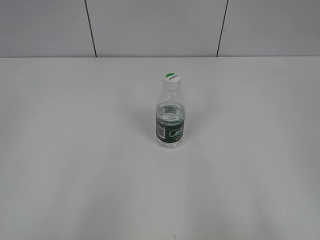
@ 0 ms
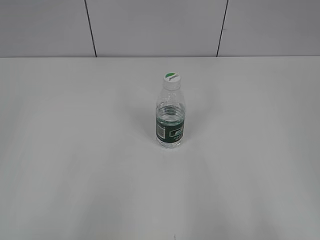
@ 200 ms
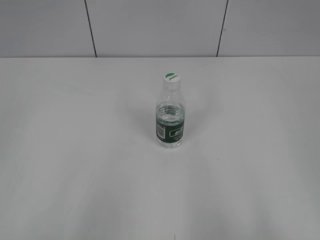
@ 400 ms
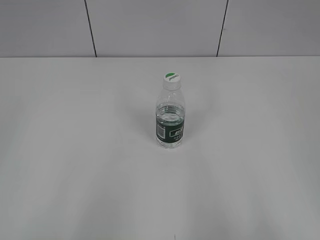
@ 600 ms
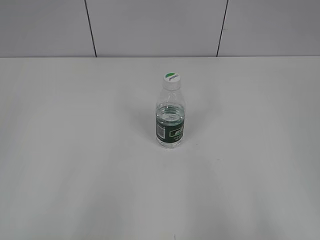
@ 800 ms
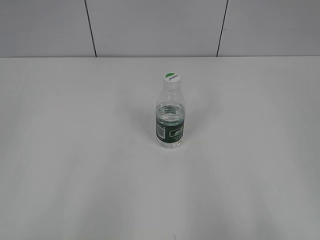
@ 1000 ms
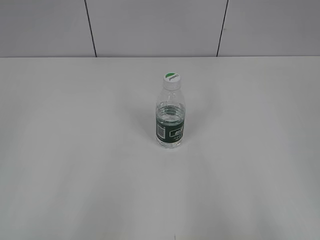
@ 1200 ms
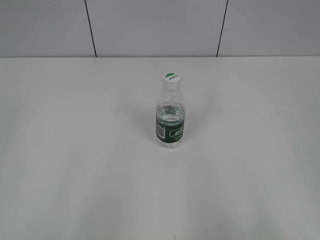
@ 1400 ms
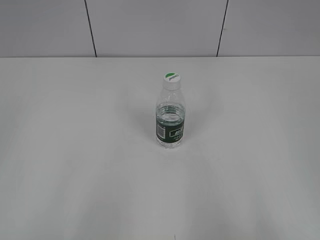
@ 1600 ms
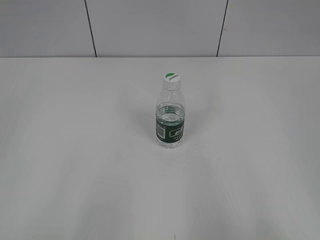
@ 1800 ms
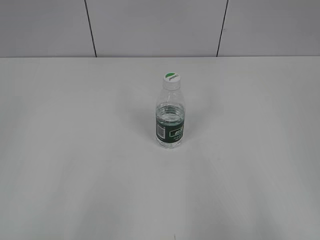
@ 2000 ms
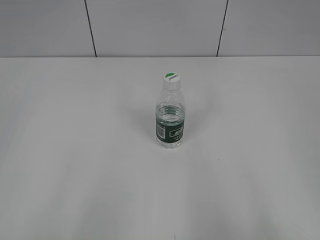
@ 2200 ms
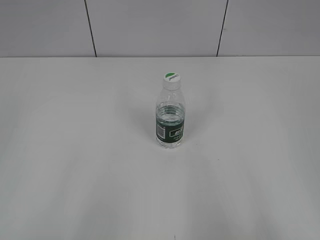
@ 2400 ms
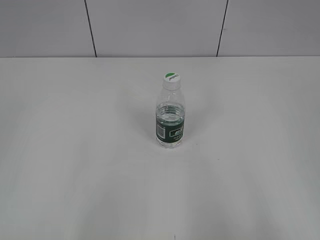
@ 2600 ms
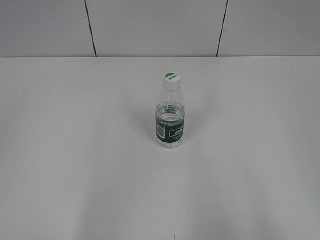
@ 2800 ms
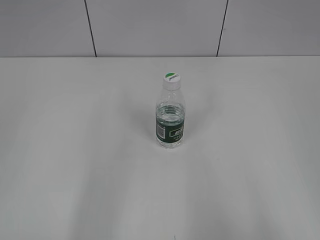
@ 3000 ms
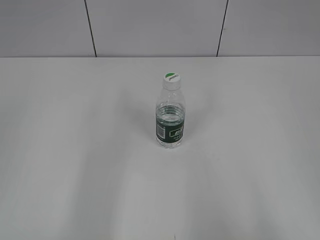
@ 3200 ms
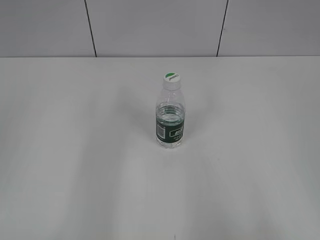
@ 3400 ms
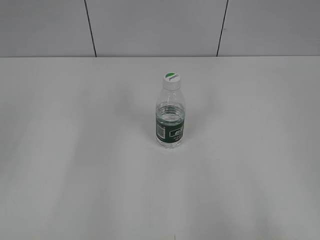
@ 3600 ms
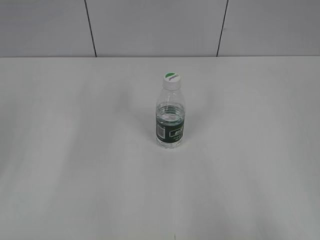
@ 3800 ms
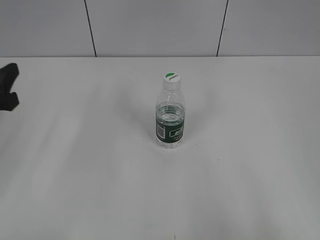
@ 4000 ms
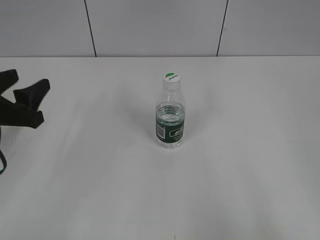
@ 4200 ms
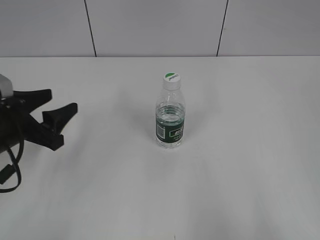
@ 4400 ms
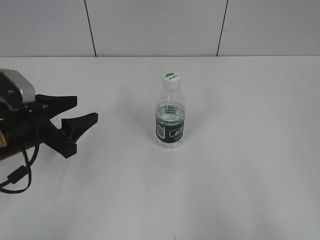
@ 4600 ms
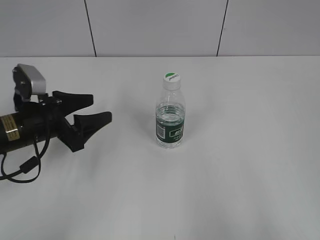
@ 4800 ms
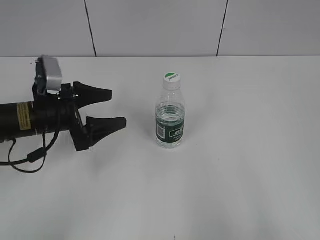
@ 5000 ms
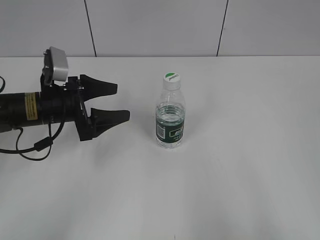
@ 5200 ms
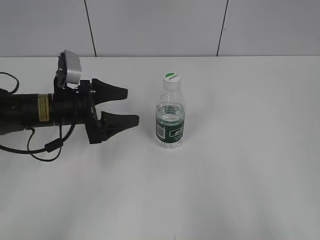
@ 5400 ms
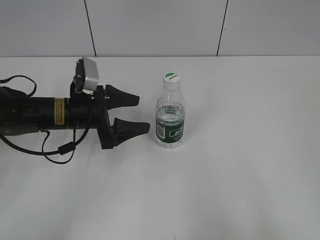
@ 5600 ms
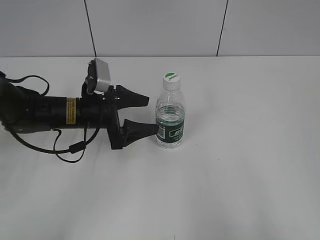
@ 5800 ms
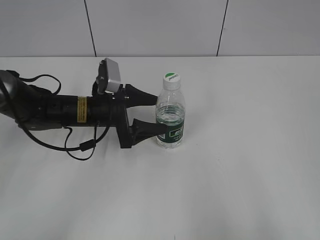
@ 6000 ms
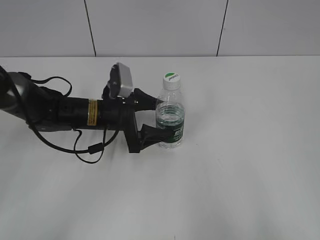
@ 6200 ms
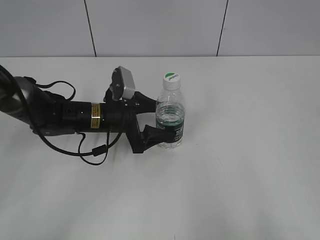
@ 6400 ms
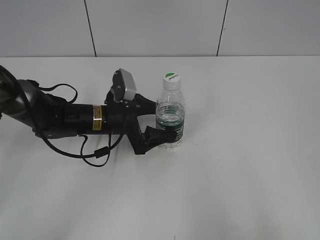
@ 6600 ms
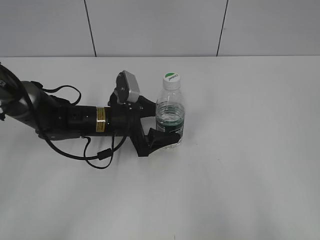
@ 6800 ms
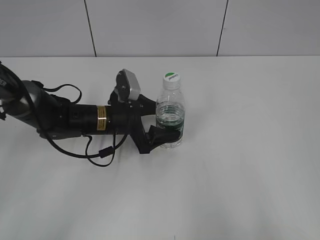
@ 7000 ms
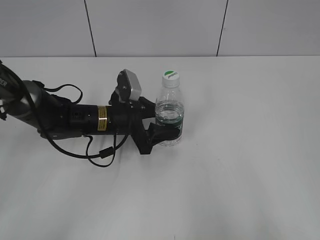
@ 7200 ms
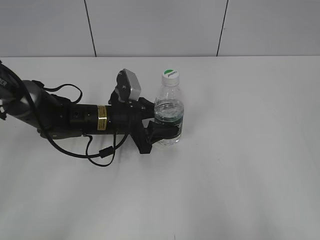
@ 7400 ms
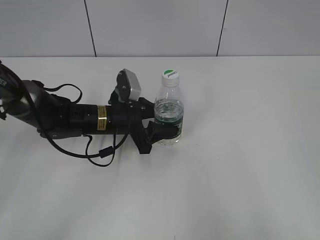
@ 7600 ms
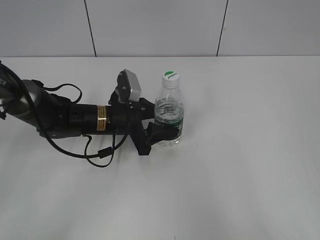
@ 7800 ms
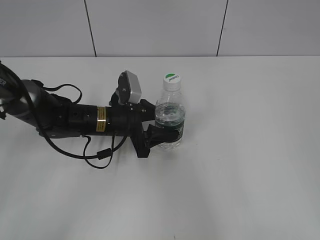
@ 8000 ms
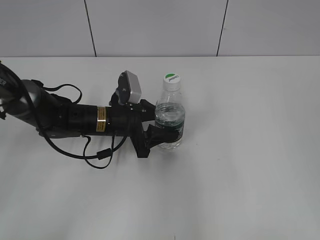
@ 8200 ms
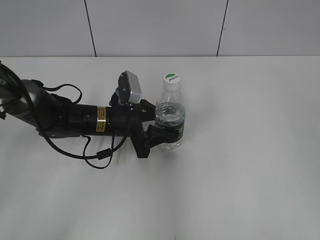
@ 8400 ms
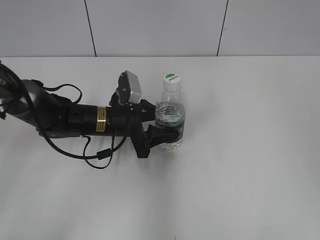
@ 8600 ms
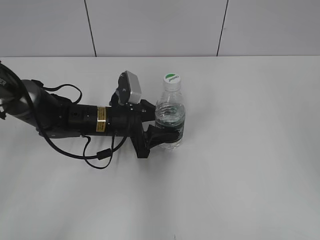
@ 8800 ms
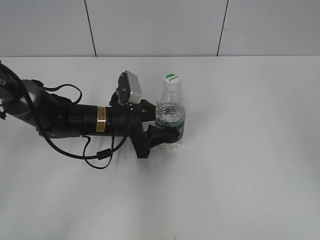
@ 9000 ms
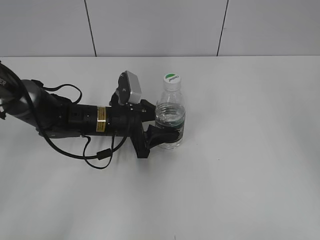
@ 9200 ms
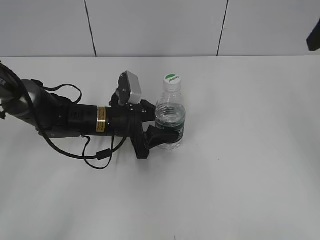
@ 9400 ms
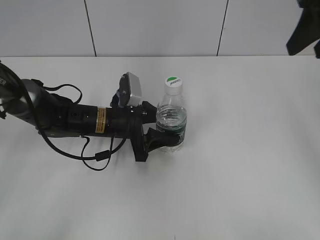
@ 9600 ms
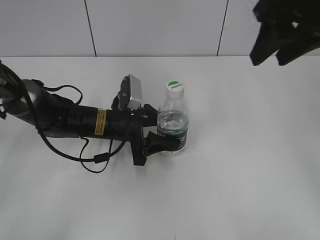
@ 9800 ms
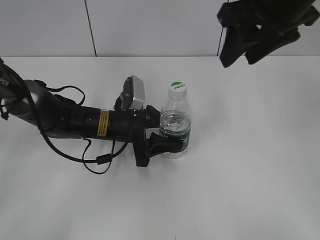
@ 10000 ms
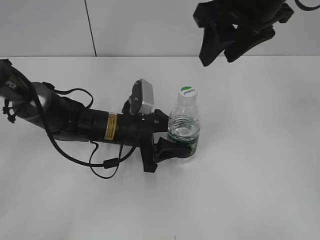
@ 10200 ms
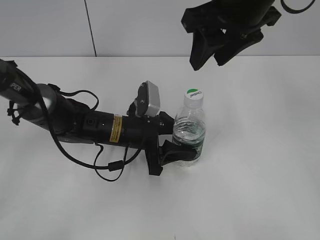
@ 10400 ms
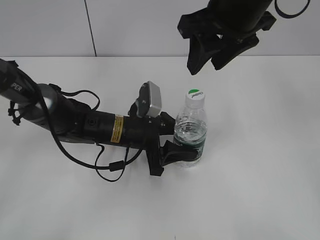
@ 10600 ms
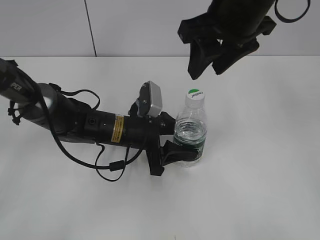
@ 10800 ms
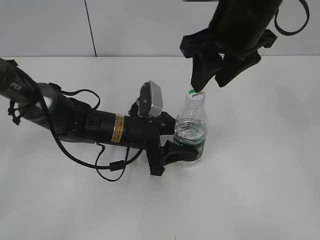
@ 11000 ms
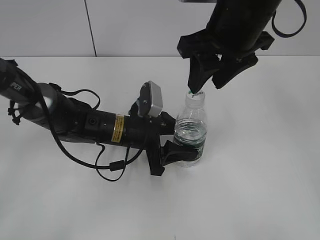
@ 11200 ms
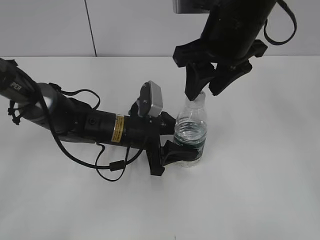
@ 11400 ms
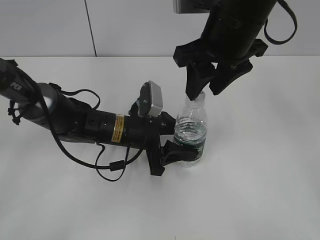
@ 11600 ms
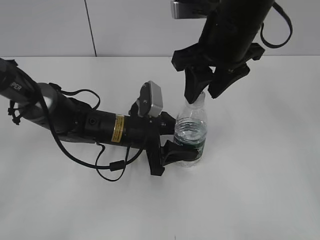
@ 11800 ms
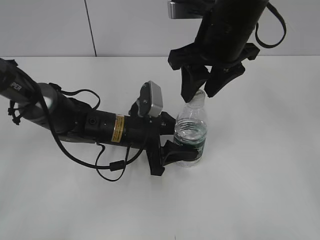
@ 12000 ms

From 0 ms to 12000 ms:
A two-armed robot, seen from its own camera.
Step, from 0 ms to 7600 ms: Grasp the bottle and move it to the center of the table with the left gripper.
From 3000 ms to 4400 ms: The left gripper travels forward and downward by about 25 cm.
From 4400 ms to 6000 ms: The left gripper shifts some 15 cm to the right and forward, and opens its fingers.
From 6000 ms to 7600 ms: The left gripper closes its fingers.
From 7600 ms to 9000 ms: The right gripper heads forward, covering some 20 cm, and closes up.
From 9000 ms to 10400 ms: The right gripper travels to the left and forward by some 20 cm.
From 10400 ms to 12000 ms: The right gripper moves downward, some 5 cm.

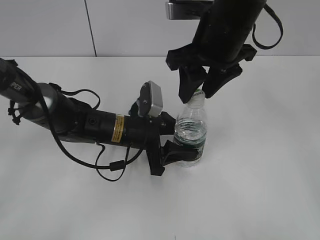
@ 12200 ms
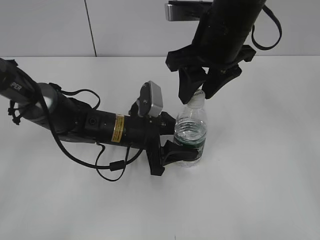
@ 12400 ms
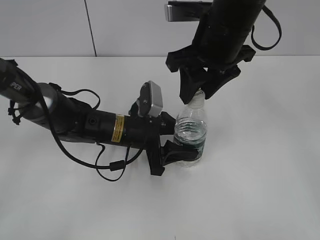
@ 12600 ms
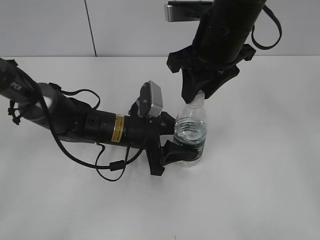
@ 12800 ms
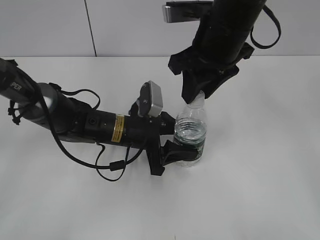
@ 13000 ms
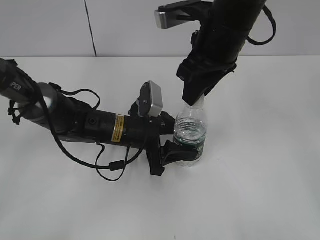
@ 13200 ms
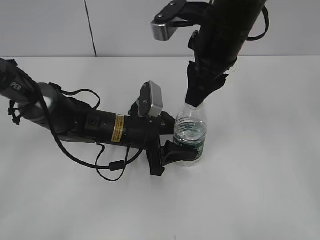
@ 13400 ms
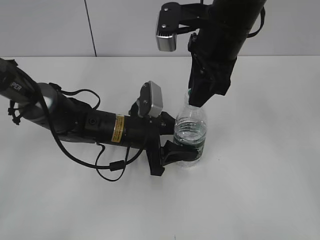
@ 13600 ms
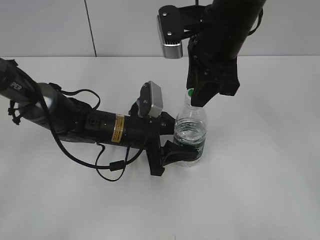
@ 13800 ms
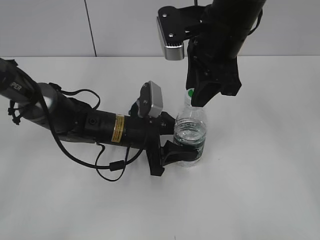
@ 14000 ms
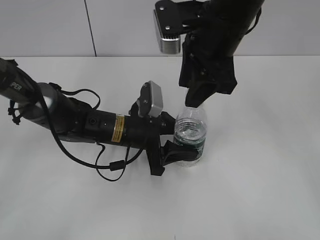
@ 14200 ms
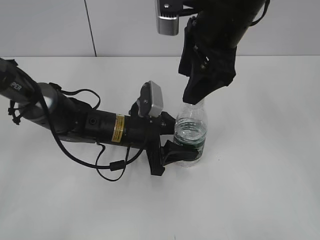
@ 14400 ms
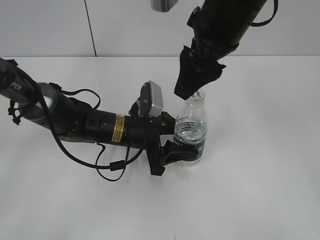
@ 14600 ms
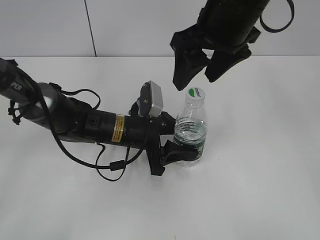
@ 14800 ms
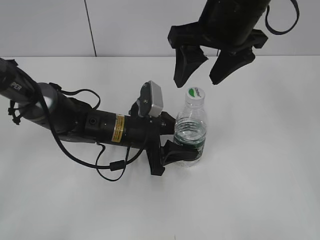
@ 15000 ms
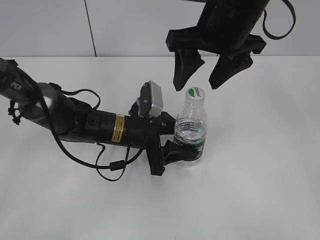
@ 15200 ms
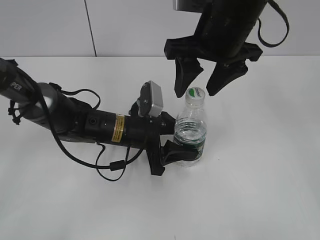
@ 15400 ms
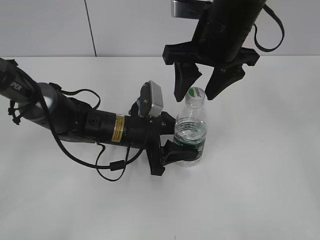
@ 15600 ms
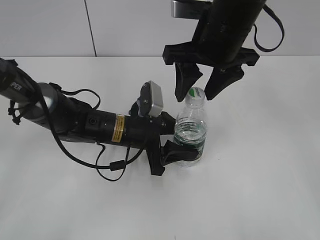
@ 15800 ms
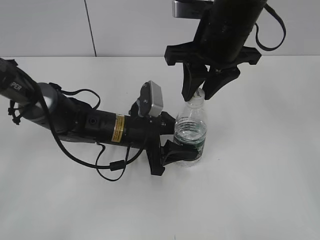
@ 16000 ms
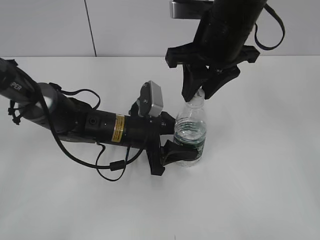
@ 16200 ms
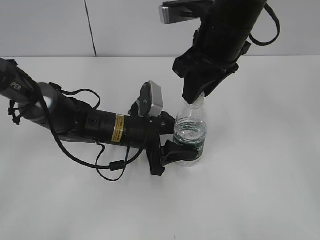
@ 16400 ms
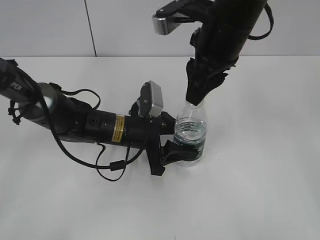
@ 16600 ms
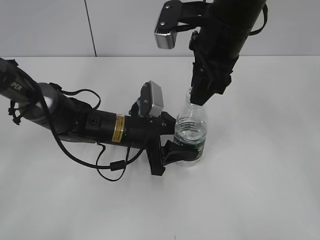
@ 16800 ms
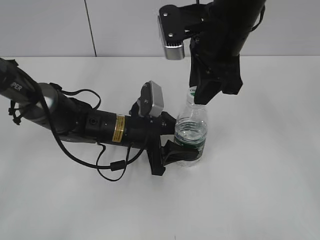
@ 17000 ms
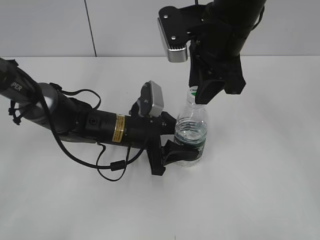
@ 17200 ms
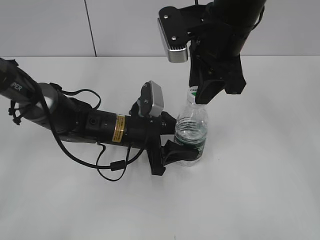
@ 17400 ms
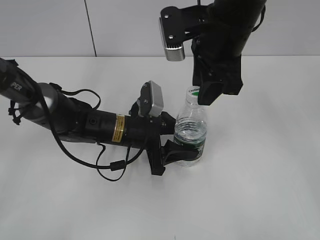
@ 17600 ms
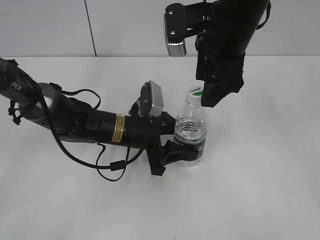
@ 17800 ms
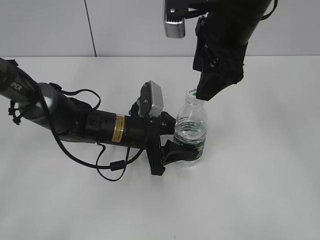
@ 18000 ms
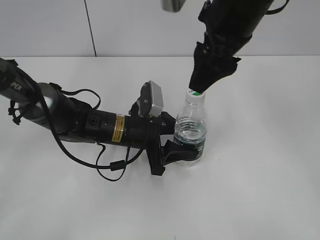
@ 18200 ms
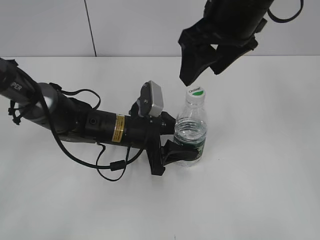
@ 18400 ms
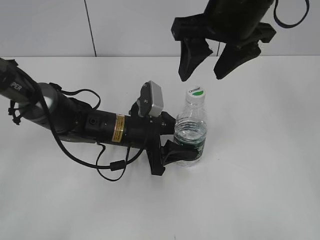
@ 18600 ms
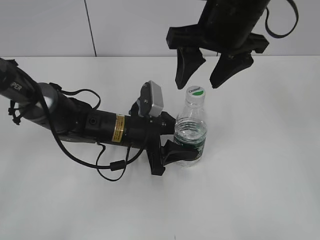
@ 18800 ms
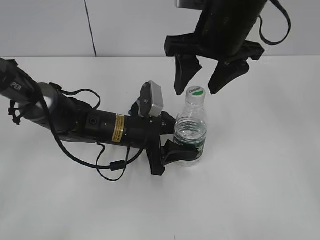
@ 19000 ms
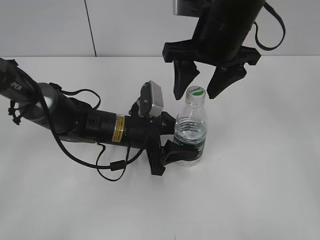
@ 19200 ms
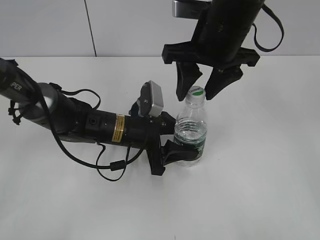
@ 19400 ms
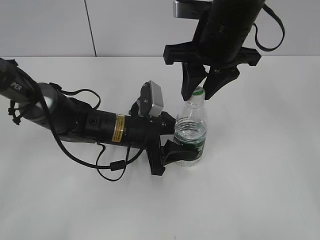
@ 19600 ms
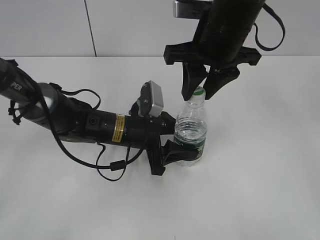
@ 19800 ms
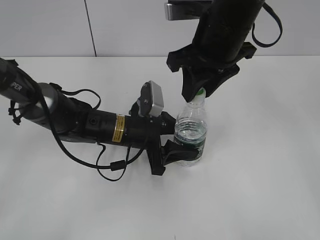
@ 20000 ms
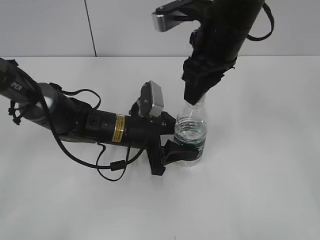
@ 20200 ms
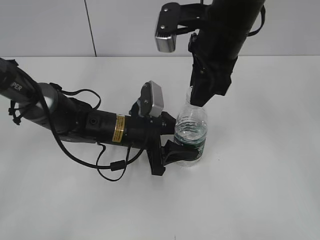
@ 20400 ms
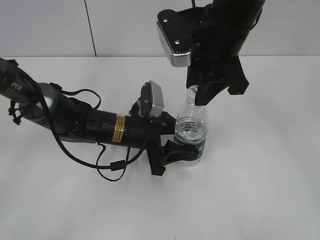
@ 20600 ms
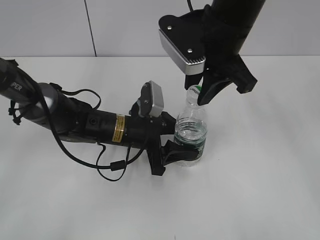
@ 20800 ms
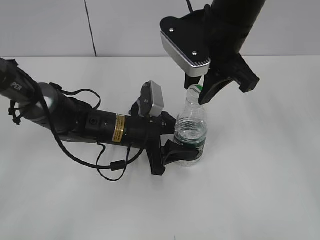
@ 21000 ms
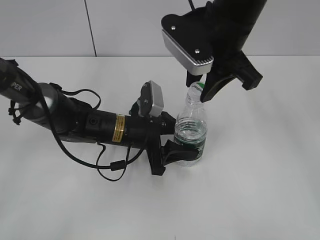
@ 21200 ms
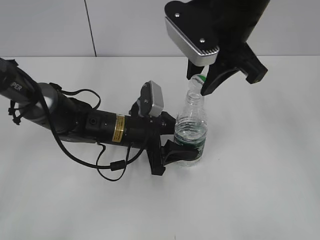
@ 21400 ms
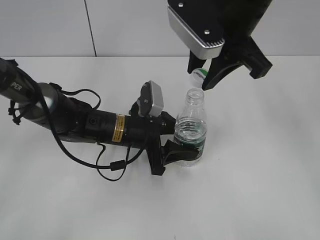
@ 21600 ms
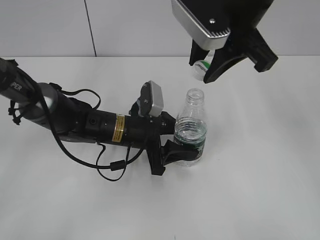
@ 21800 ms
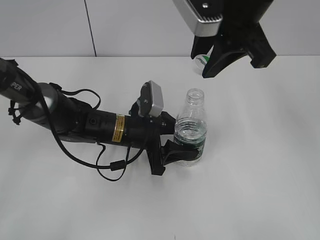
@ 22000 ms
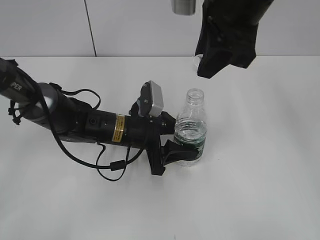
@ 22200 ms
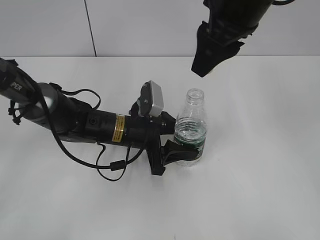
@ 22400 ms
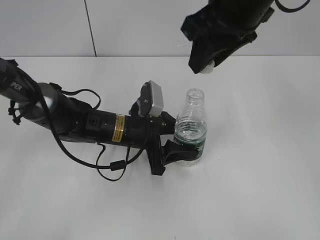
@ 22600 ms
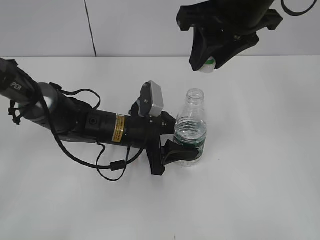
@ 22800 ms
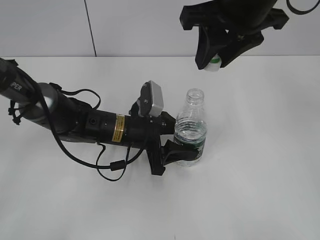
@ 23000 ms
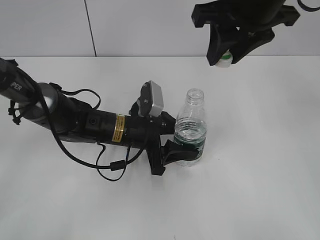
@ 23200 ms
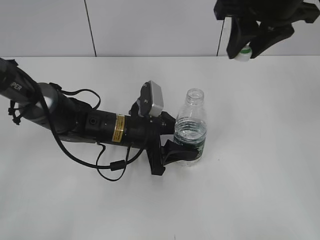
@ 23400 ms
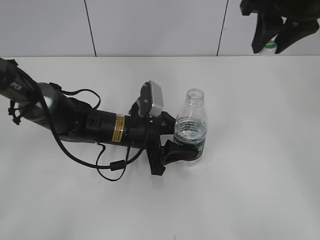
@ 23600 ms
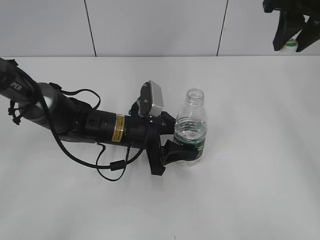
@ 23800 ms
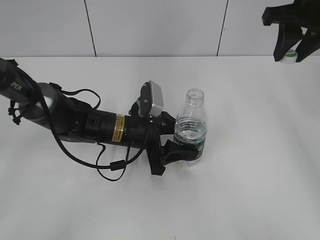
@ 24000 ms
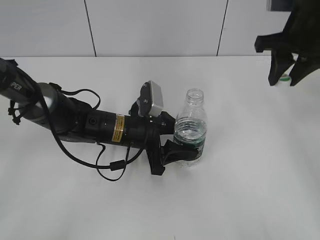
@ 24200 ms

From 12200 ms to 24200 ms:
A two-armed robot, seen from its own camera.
Step, from 12200 ms to 21600 ms: Unscrew the bottle cap with the right gripper while holding the bottle with the left gripper.
From 12200 ms to 13800 ms: The right gripper closes.
From 13800 ms to 15200 ms: The right gripper opens up.
From 15200 ms to 16600 ms: The right gripper closes its fingers.
From 16600 ms to 18200 ms: The right gripper opens.
From 18200 ms to 19800 ms: The right gripper closes.
From 21200 ms to 22600 ms: The right gripper moves approximately 5 cm.
From 22600 ms to 24200 ms: The right gripper shifts approximately 15 cm to the right, forward and downward.
